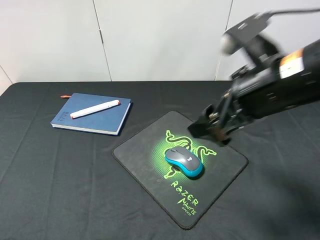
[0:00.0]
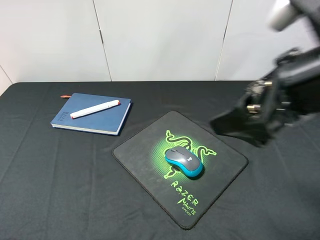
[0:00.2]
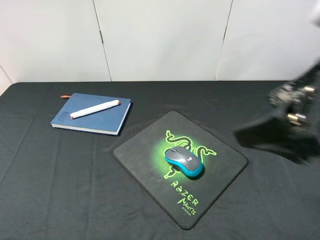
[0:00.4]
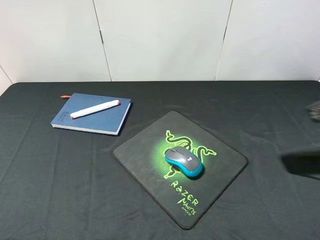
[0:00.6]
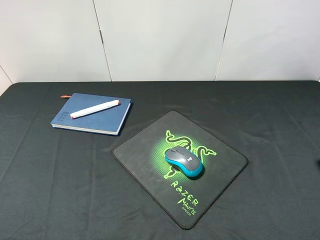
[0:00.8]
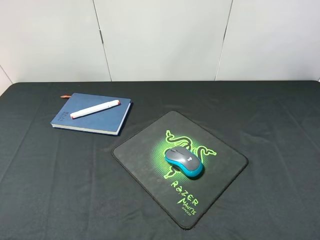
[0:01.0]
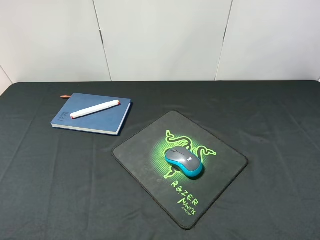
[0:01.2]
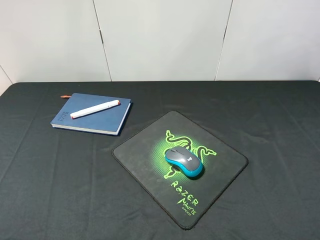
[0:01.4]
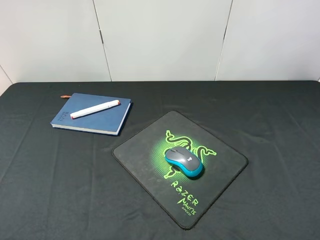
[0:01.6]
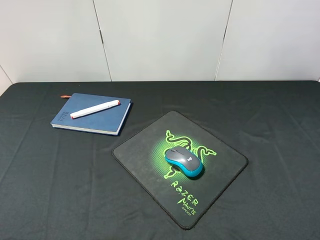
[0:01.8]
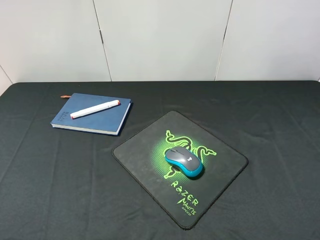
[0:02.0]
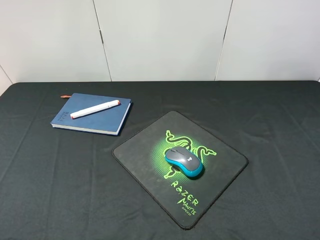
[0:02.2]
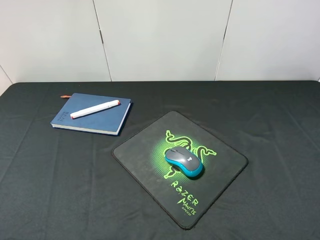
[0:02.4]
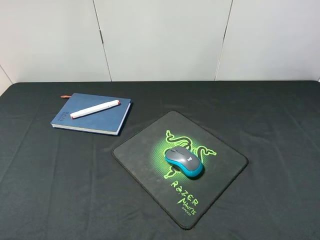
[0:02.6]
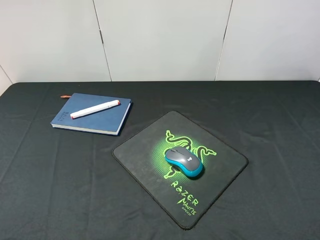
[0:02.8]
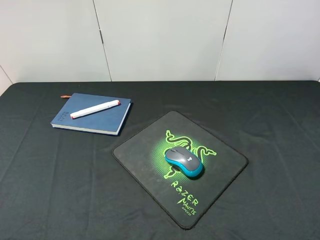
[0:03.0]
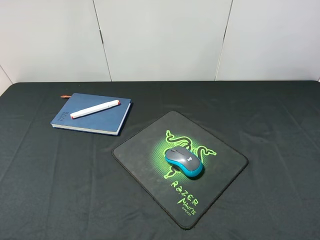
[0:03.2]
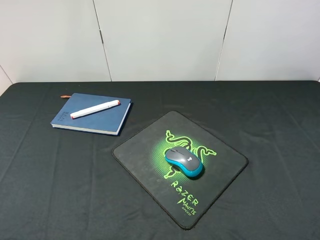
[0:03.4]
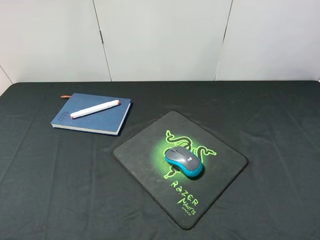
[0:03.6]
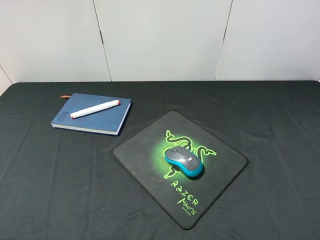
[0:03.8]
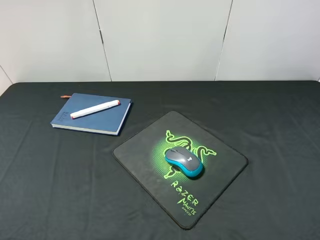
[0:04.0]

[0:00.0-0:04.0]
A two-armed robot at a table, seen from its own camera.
0:00.0 to 0:01.4: The right gripper moves backward, to the right and upward, about 20 cm.
0:02.6 to 0:04.0: Both grippers stay put.
